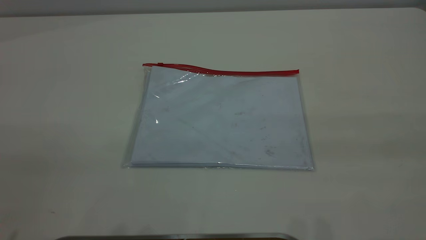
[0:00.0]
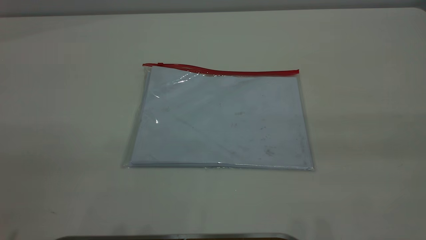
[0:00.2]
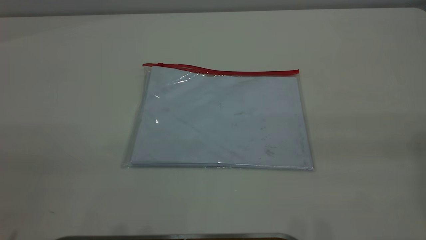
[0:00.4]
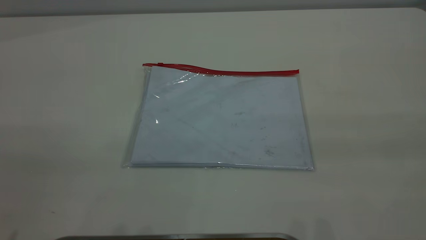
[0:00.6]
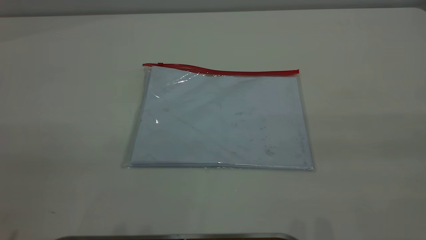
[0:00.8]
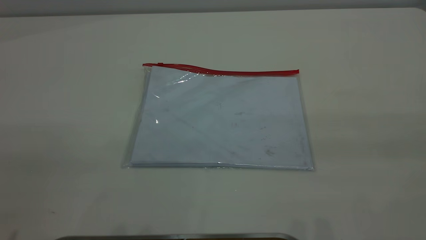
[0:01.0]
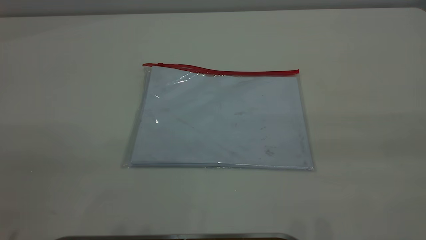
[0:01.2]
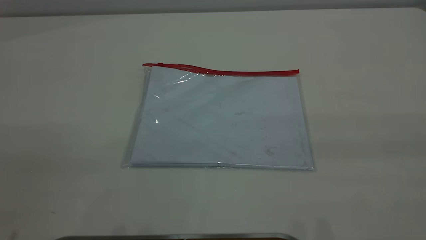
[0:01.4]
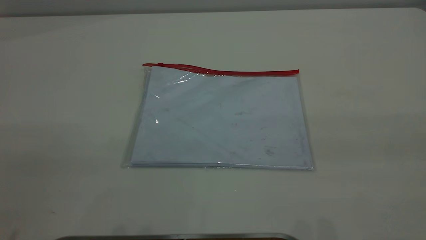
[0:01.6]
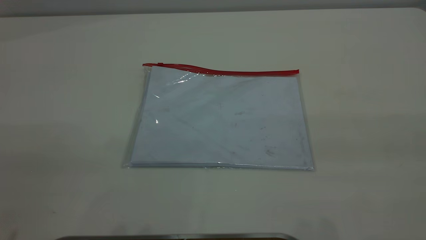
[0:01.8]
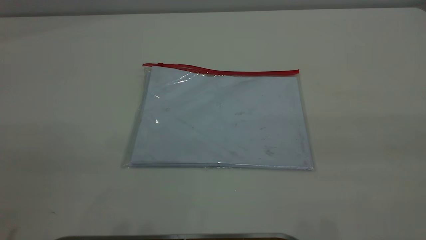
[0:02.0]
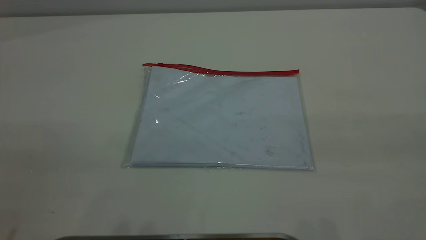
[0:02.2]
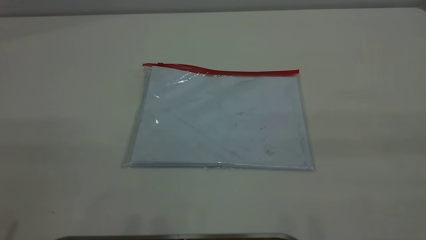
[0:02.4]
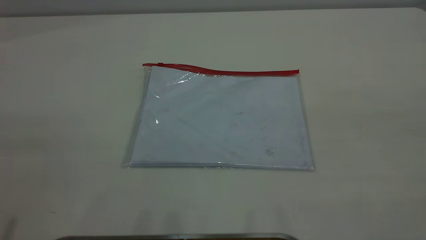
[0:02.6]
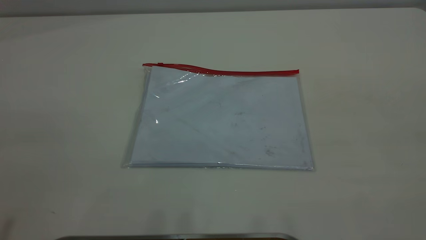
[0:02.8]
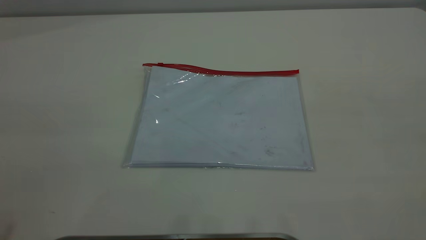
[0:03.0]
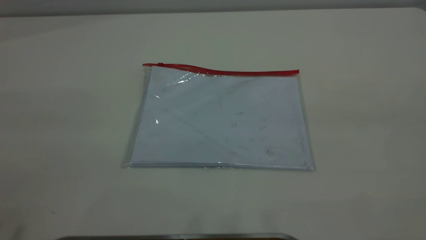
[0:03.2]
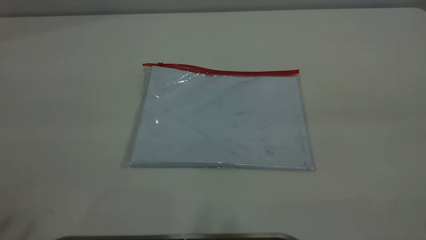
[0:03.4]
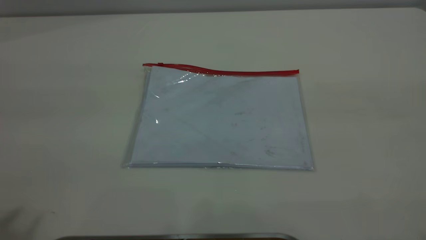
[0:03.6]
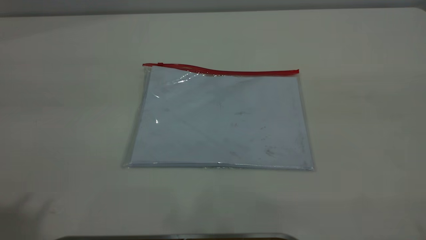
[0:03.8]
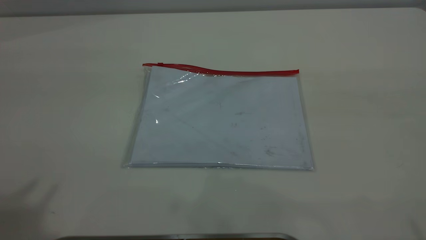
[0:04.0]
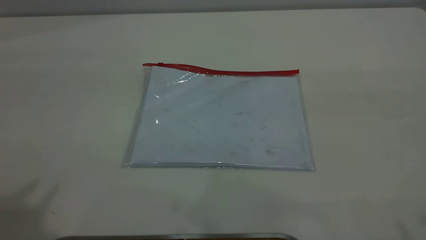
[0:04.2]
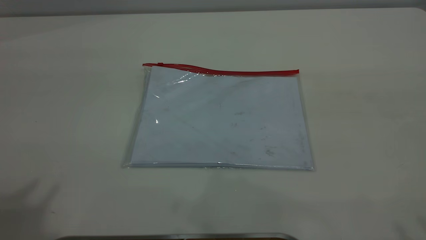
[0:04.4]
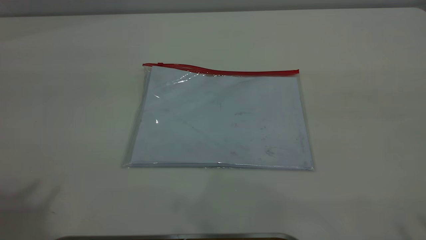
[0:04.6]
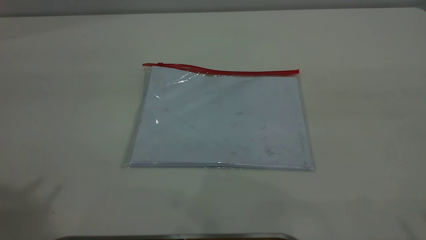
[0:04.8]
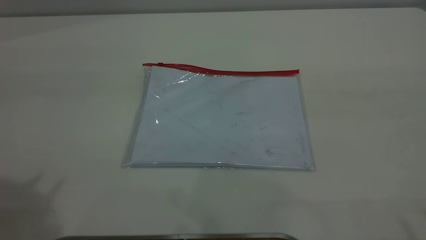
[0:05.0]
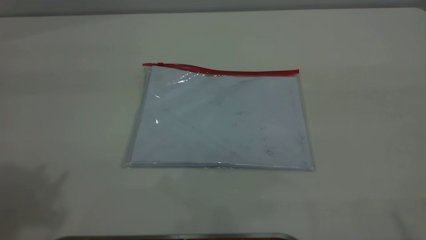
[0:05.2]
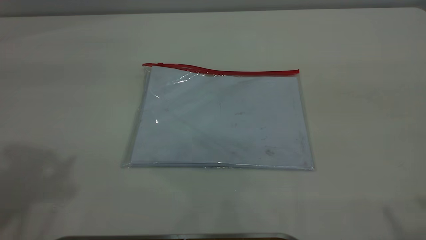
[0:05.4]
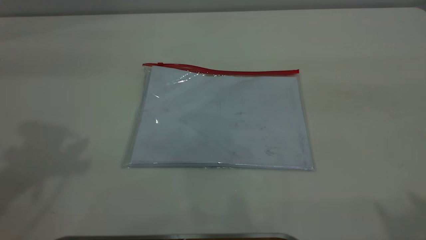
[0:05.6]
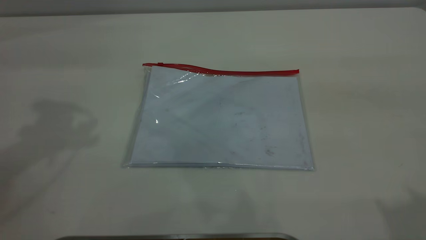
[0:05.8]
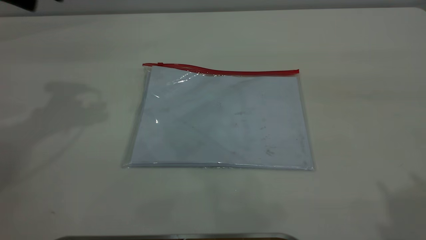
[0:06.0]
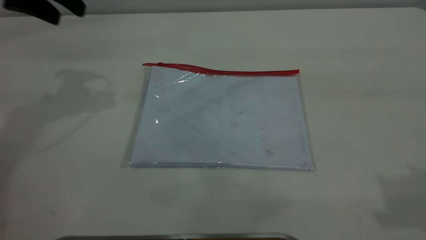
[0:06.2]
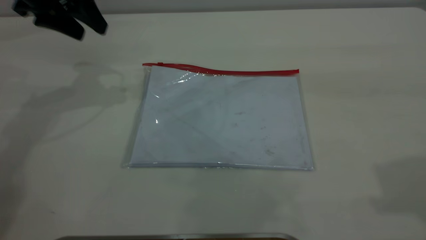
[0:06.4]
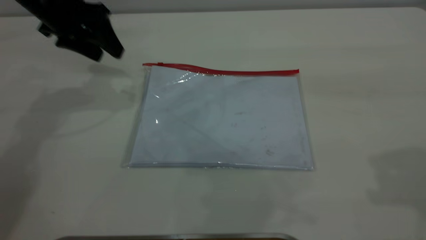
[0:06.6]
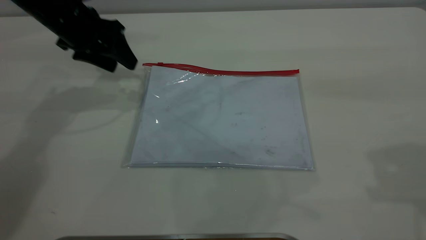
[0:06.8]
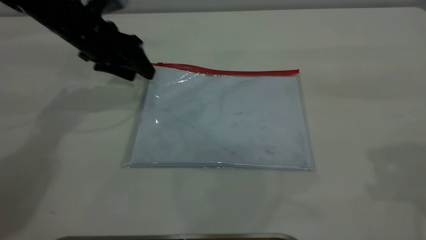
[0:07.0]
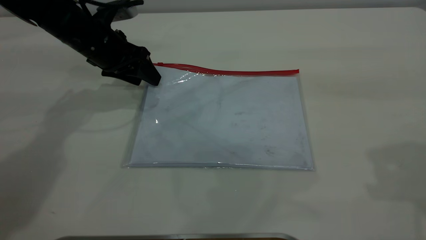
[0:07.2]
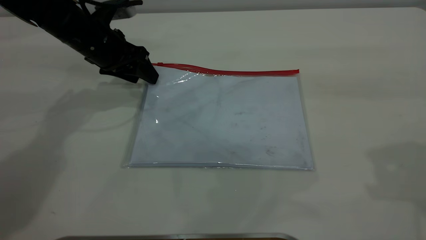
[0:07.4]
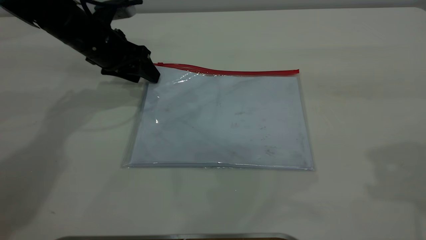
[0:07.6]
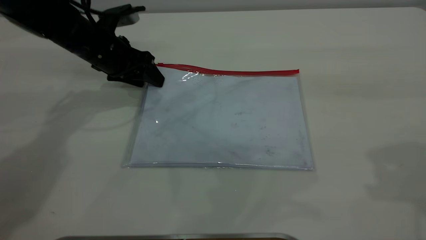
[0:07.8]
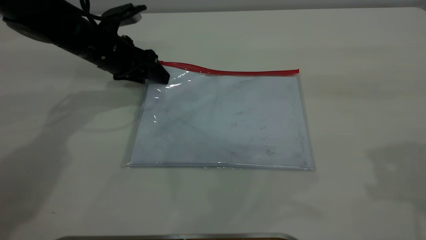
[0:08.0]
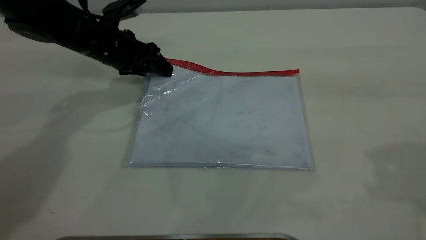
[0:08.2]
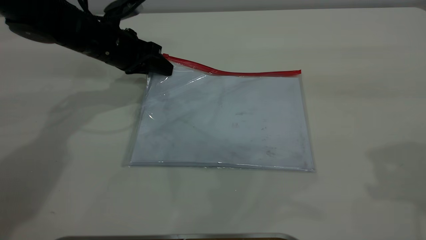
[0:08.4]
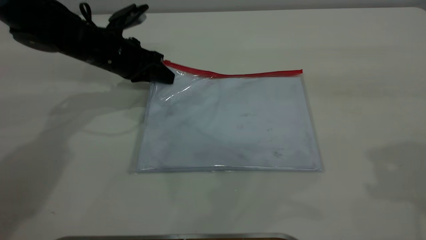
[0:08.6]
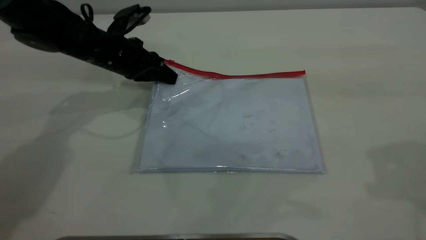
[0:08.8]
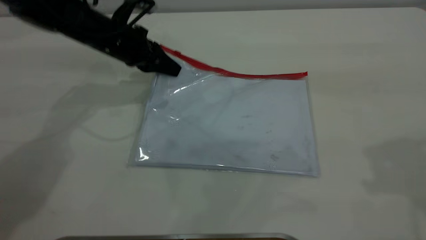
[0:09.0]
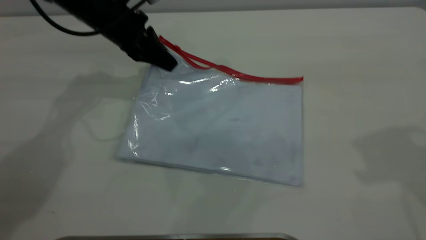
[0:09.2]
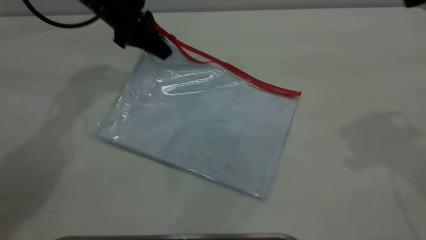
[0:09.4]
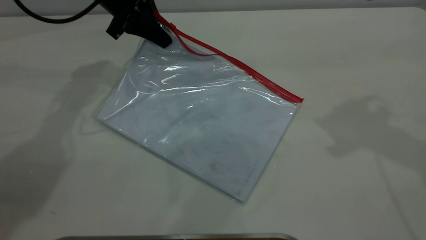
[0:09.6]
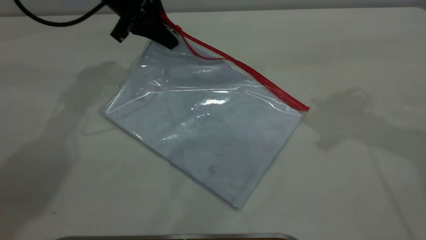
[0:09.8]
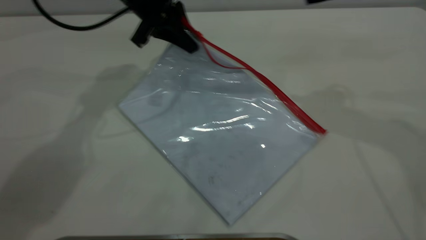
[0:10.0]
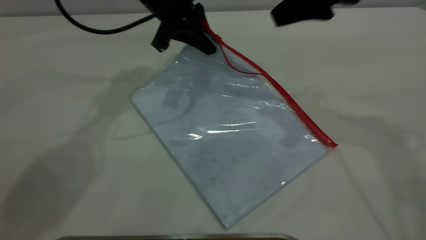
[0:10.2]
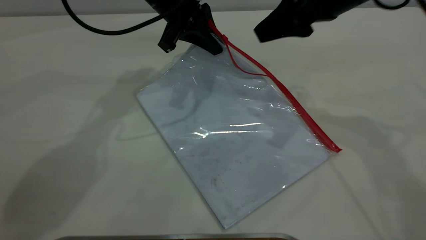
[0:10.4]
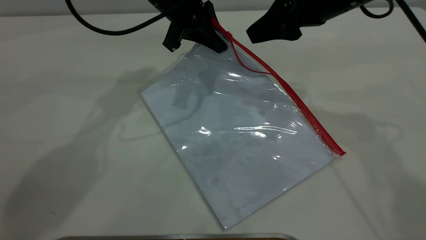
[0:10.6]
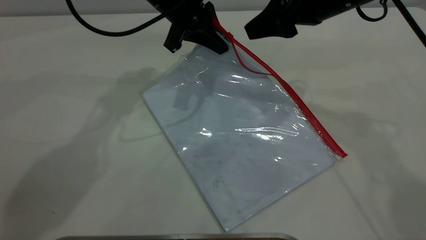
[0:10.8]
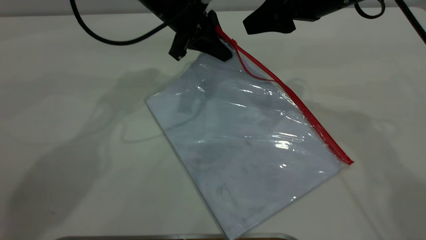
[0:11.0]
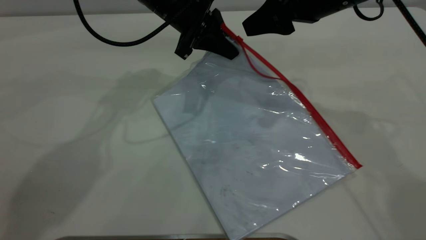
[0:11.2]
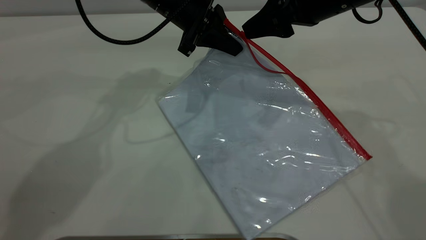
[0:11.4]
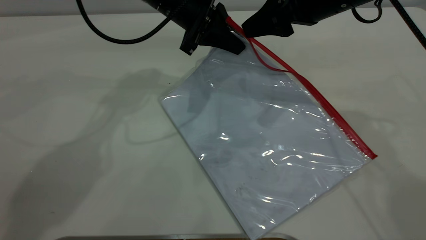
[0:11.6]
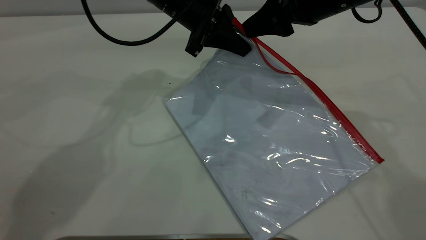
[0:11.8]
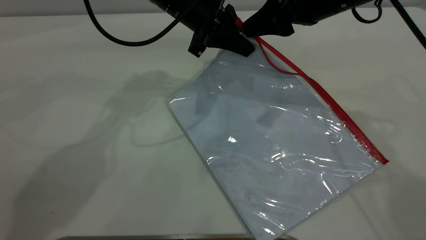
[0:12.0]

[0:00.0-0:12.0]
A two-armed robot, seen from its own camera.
Step, 0.0 to 9.2 s: Pick up the transparent plastic bag with the left gripper.
6.0 to 7.6 s: The left gripper heads downward, covering about 20 cm. Meanwhile the right gripper travels forward and downward by approximately 10 cm.
7.6 to 9.0 s: The left gripper closes its fingers.
9.0 to 10.4 s: The right gripper shifts about 20 cm forward, to the left and downward. Meanwhile the left gripper heads to the right and upward, covering some 10 cm.
10.4 to 12.0 s: There are only small adjustments of the grippers.

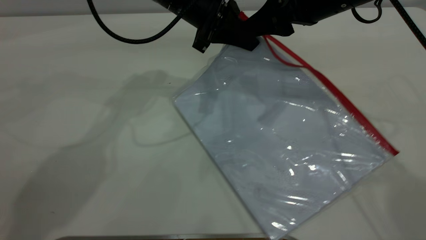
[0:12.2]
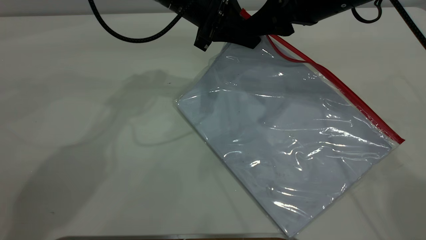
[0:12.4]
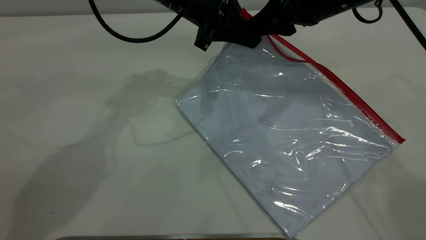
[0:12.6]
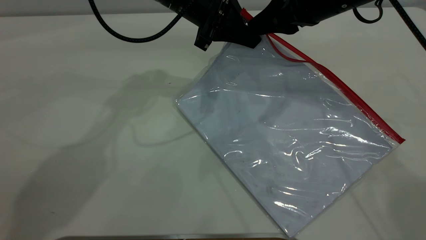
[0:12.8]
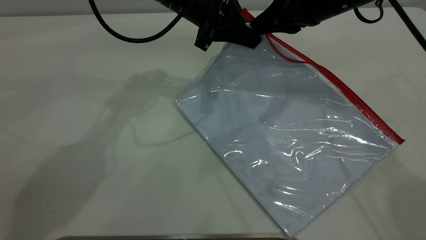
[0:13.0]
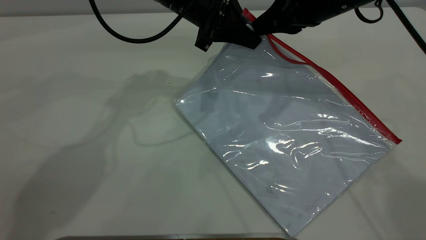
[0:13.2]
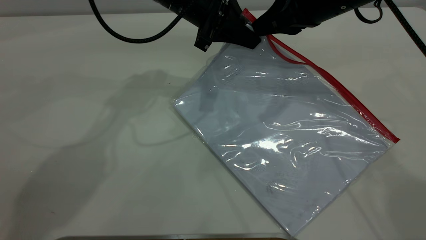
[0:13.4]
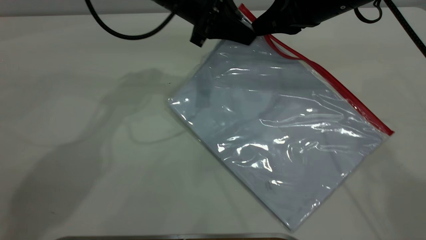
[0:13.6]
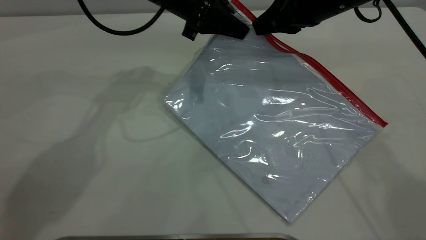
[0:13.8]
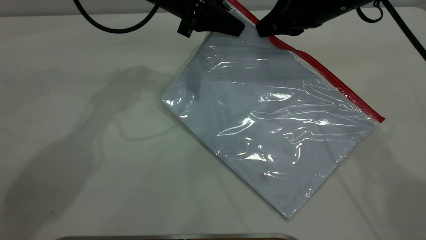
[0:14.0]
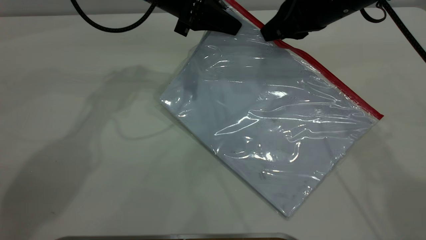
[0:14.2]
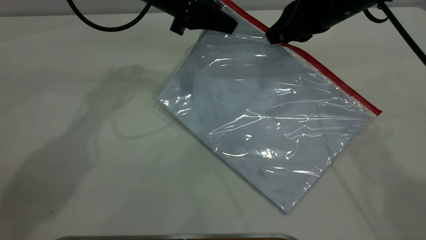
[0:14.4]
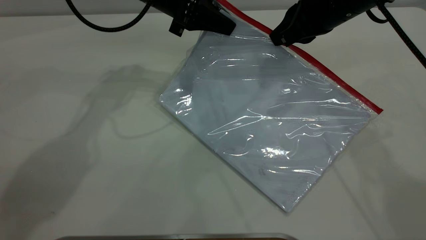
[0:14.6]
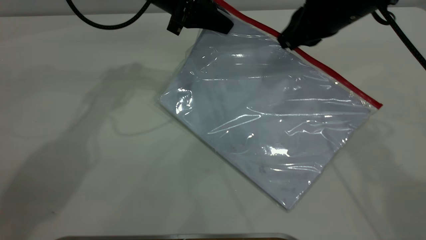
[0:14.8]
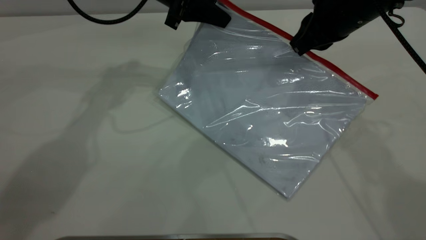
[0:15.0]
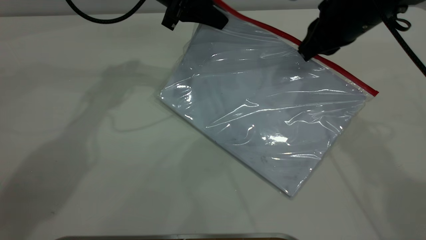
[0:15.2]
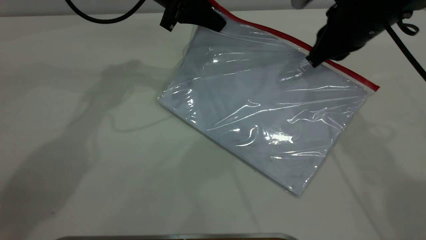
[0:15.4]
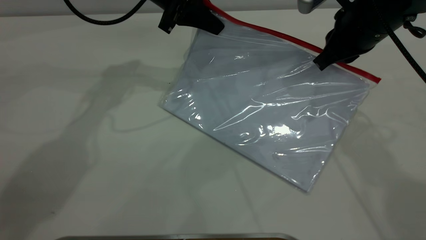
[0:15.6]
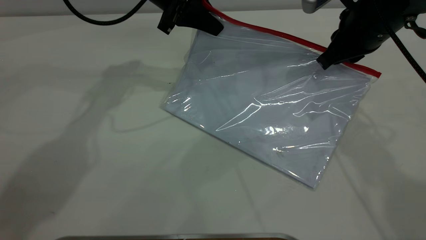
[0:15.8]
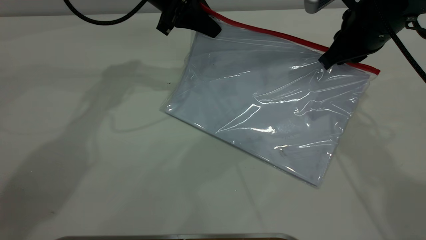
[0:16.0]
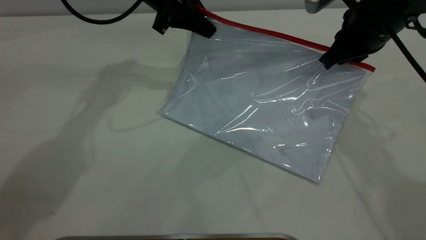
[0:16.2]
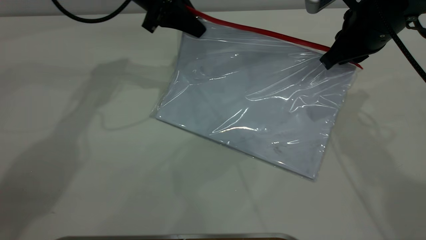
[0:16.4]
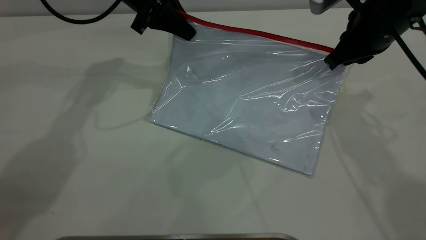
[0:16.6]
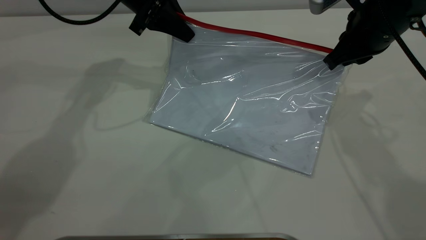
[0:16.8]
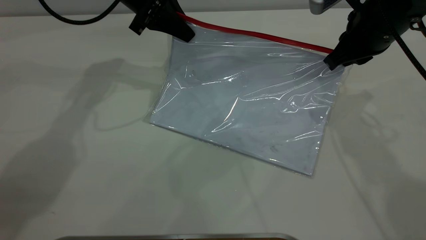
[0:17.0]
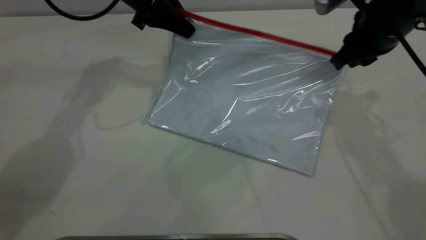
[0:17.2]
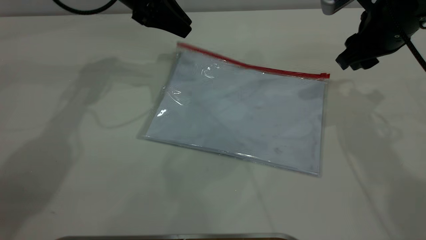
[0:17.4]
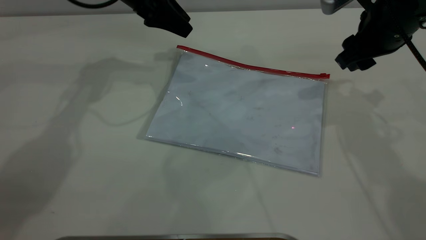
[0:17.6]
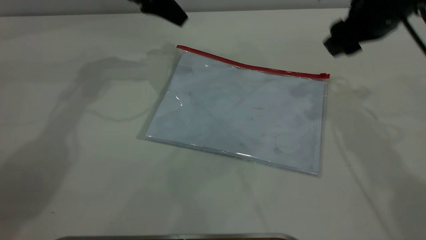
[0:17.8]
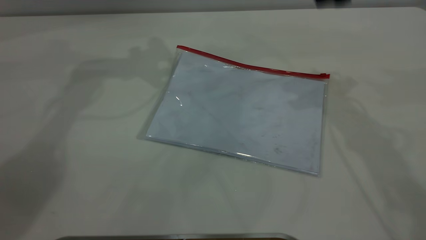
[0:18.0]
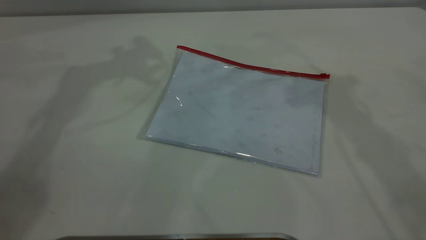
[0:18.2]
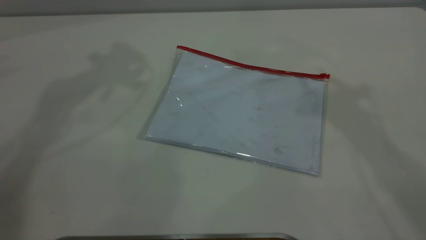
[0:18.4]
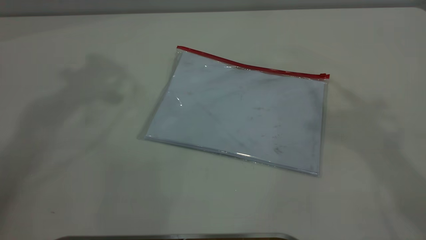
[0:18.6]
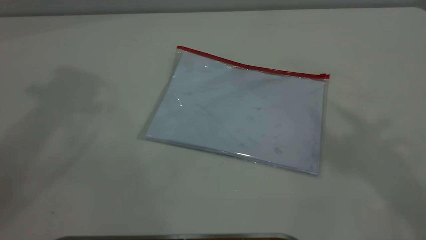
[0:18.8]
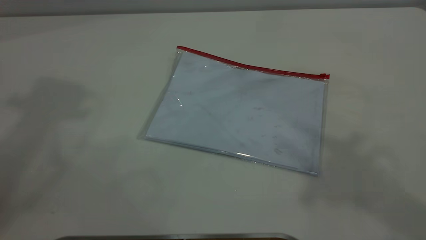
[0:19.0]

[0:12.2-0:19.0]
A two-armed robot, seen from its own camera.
Step, 12.2 to 17.2 s: Pulling up the zipper on the transparent plastic bag with the right gripper to close it.
Step, 17.4 to 17.8 s: Place the transparent plastic bag.
12.2 to 13.6 s: The right gripper closes up.
15.0 to 16.2 s: The grippers stay close to where they were, moving slightly.
16.2 to 17.6 s: The right gripper opens; the left gripper opens.
17.6 to 19.0 s: Both grippers travel together upward and backward, about 40 cm.
